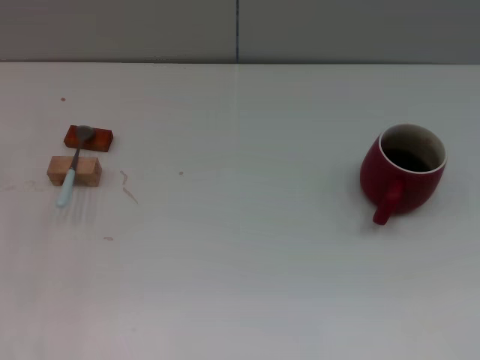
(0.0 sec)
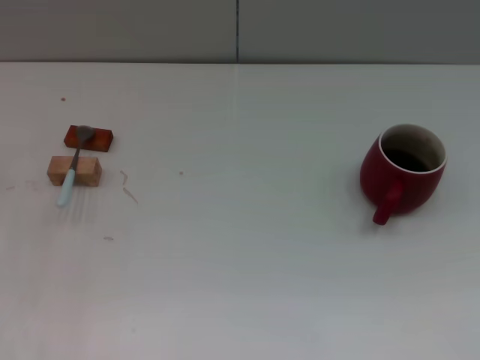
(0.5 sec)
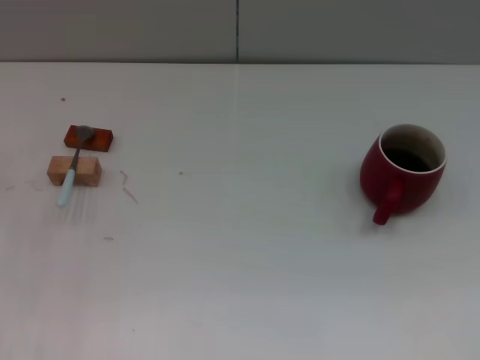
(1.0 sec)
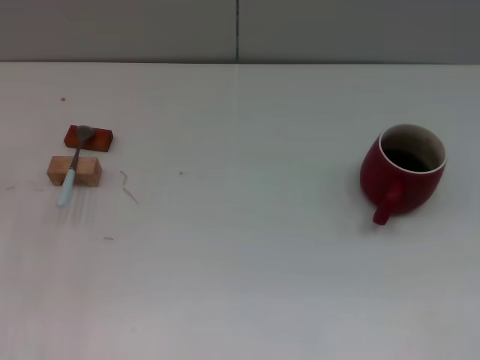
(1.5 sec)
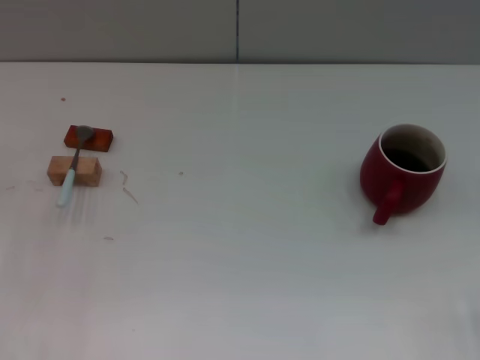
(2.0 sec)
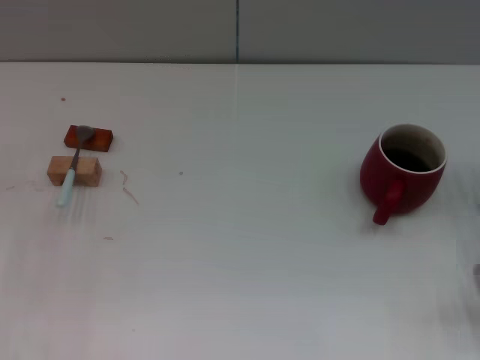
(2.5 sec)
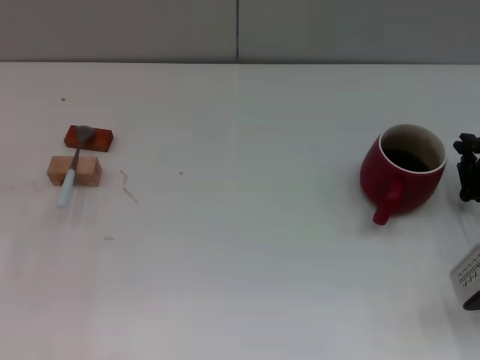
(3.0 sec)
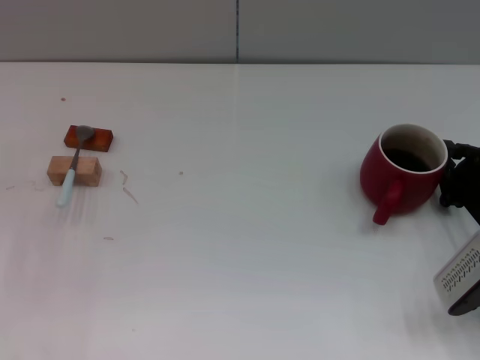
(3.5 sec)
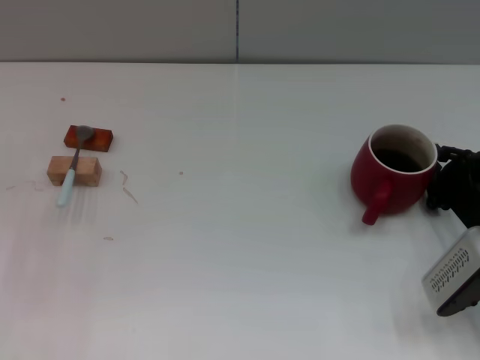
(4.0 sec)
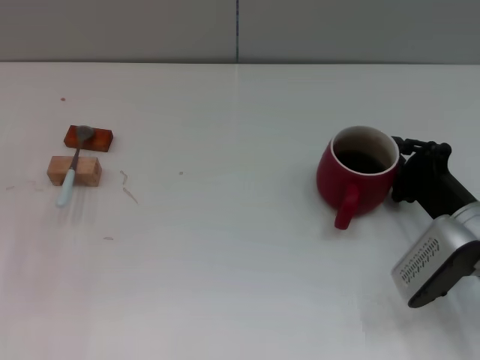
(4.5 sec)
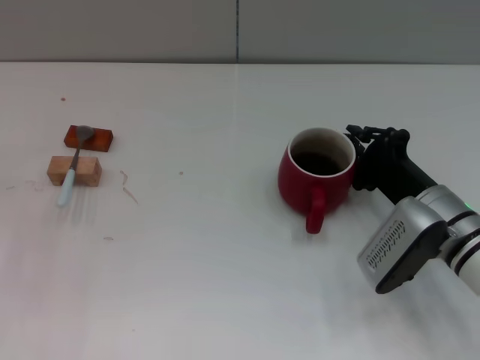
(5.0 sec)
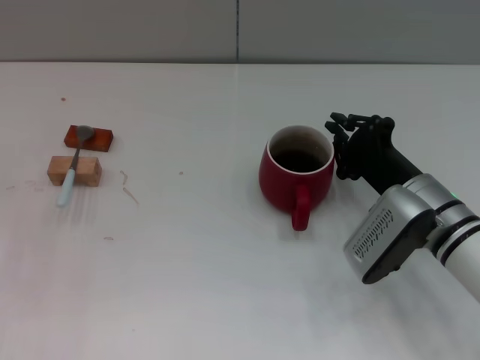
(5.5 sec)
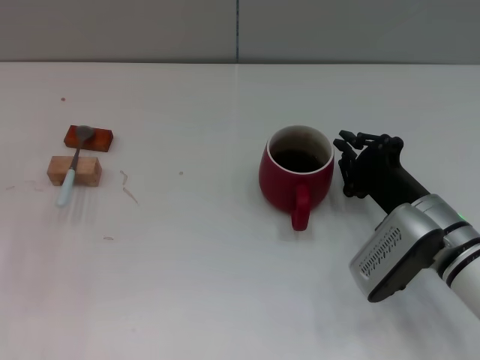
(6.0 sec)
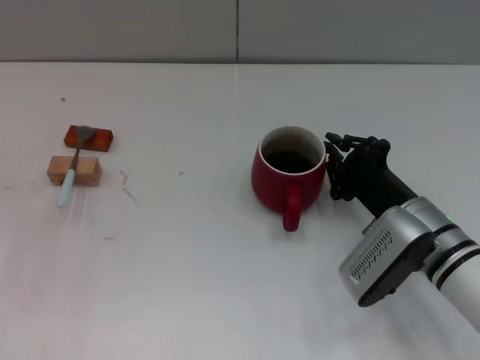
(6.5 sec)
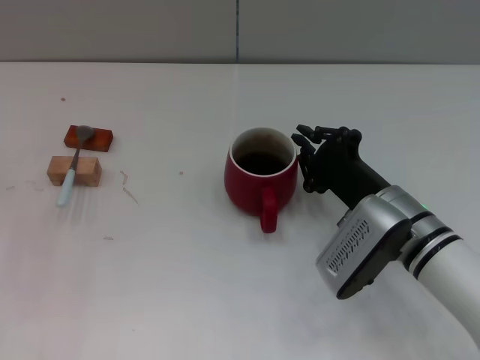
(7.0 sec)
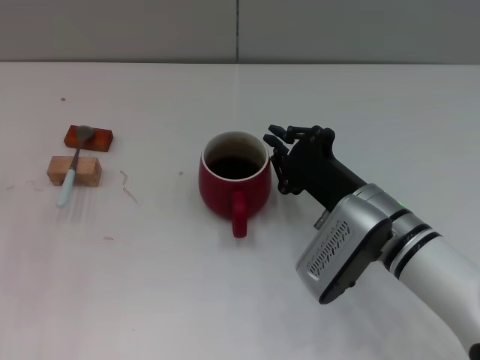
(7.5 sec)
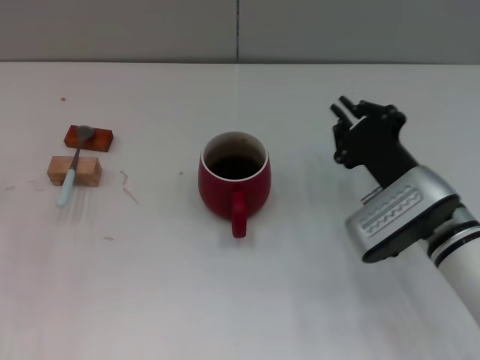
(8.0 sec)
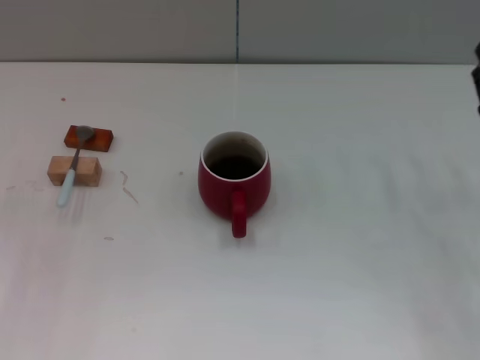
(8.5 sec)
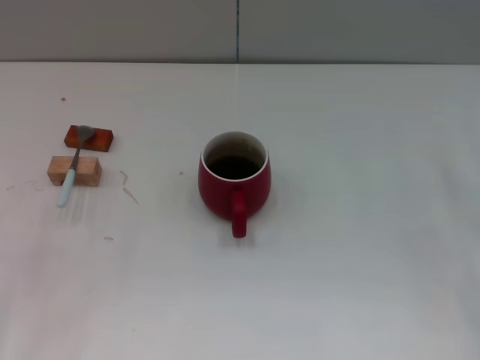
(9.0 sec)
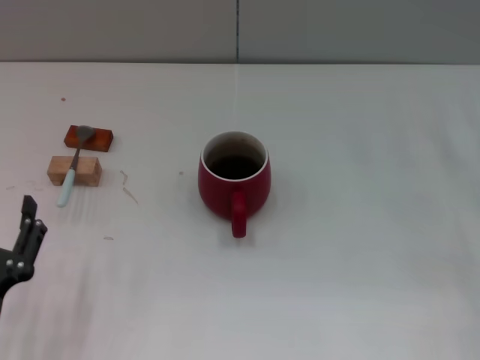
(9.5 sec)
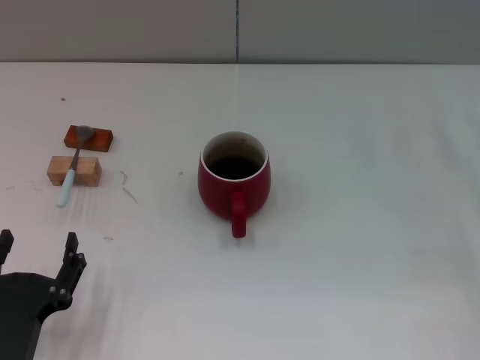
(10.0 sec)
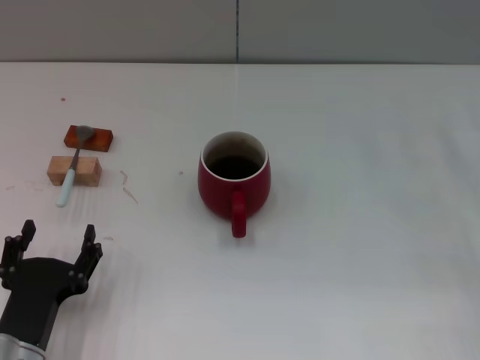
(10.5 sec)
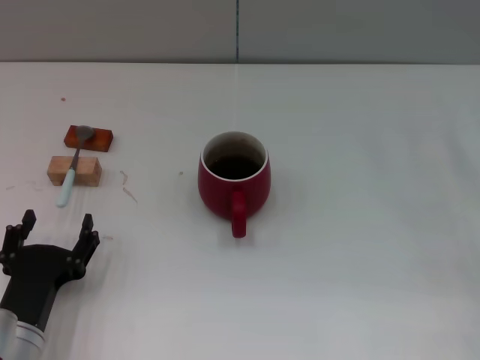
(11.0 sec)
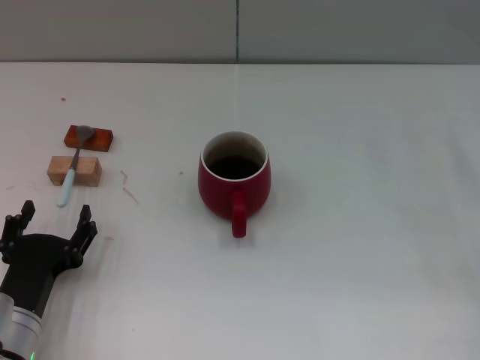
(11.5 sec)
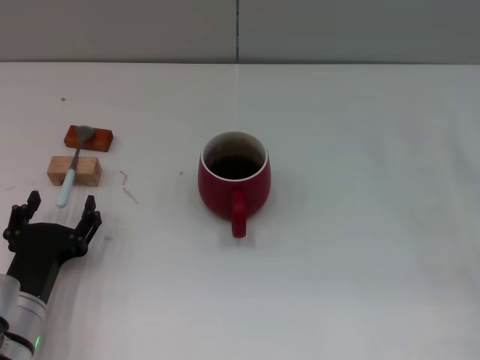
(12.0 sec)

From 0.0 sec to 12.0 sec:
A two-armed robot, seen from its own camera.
Task of the whole recording: Move the red cup to the center, lift the blue spoon, stir it three times in the cup, and put the spoon into the cup.
Step, from 0.0 sec to 7.5 sec: Move the cup with coffee to the center of view with the right gripper.
From 2.0 sec to 4.0 sec: The right gripper shifts approximately 10 cm to the left.
From 4.0 sec to 6.0 sec: The right gripper heads to the left, covering about 10 cm.
From 8.0 sec to 10.0 sec: The right gripper goes approximately 15 cm to the right, and opens its fingers. The left gripper heads backward and to the right, covering roughly 20 cm.
From 10.0 sec to 12.0 sec: The left gripper heads forward, covering roughly 10 cm.

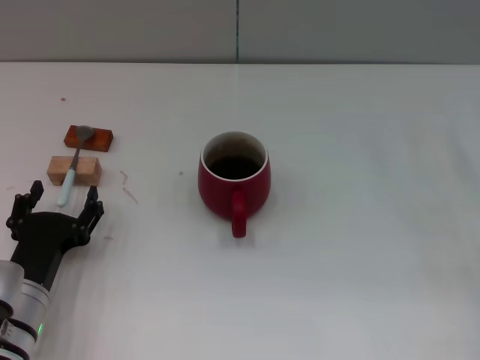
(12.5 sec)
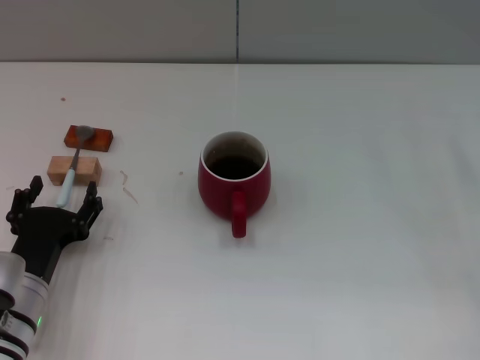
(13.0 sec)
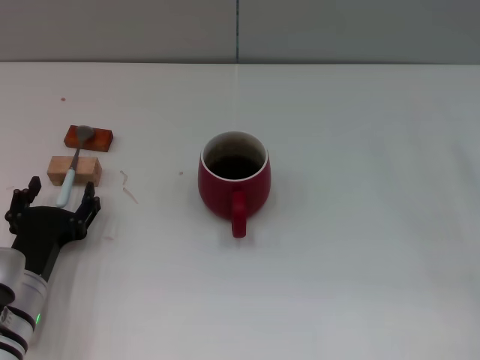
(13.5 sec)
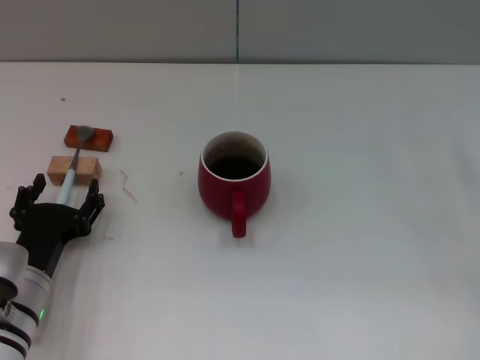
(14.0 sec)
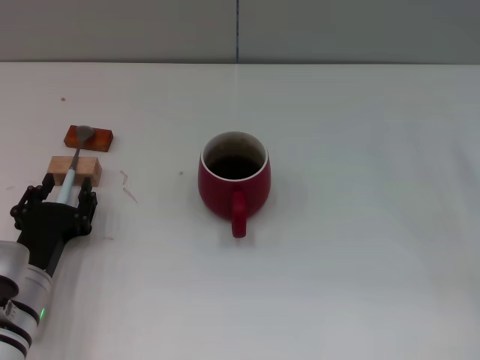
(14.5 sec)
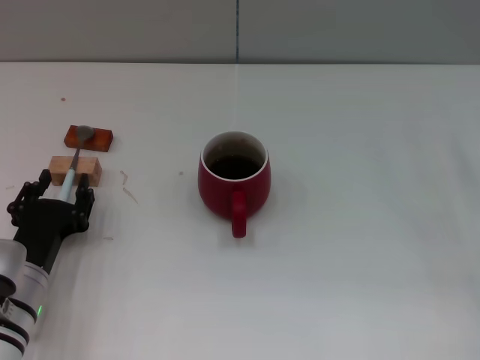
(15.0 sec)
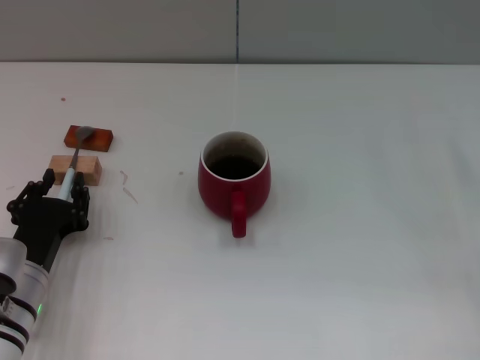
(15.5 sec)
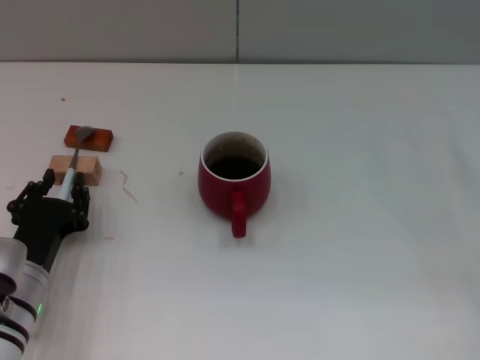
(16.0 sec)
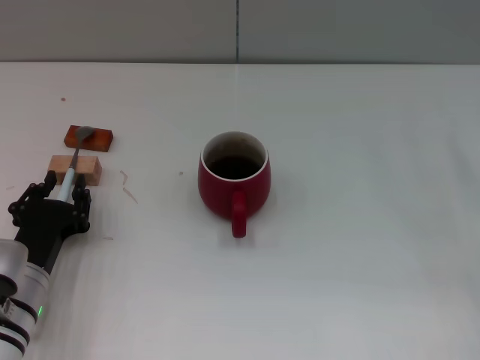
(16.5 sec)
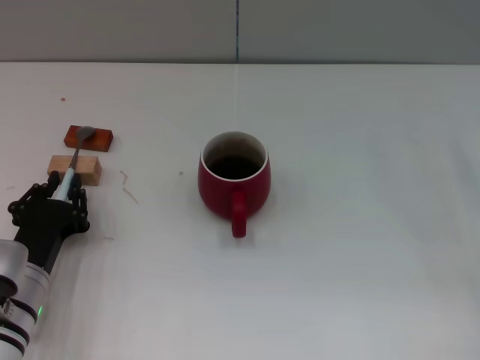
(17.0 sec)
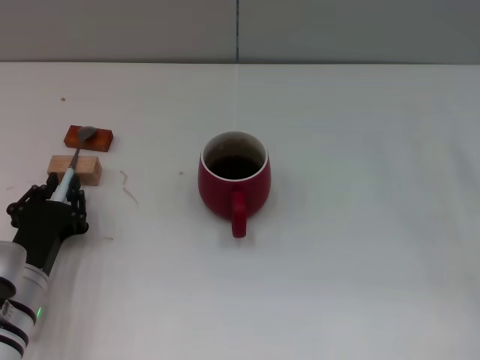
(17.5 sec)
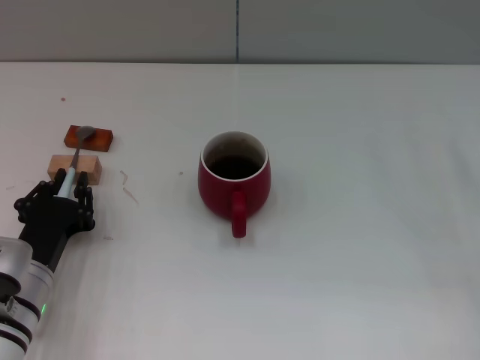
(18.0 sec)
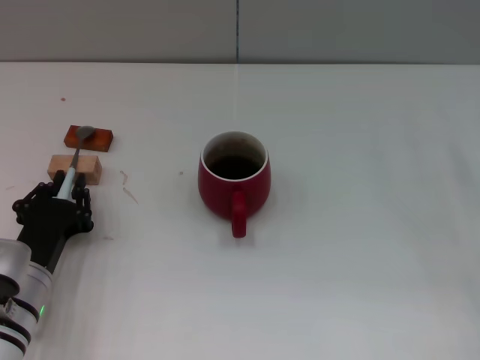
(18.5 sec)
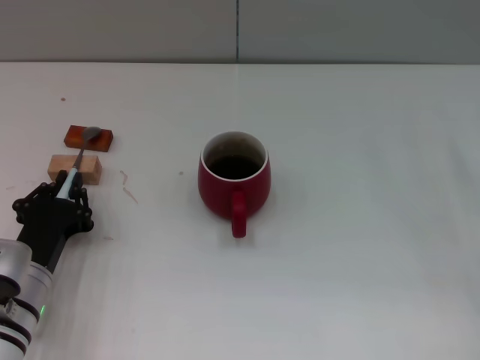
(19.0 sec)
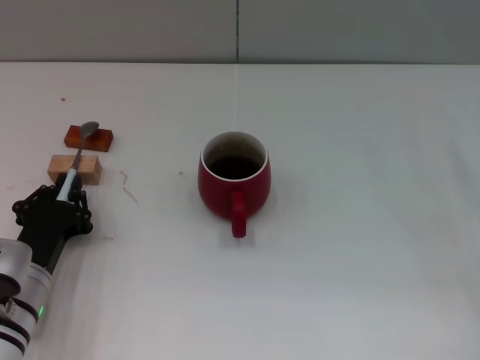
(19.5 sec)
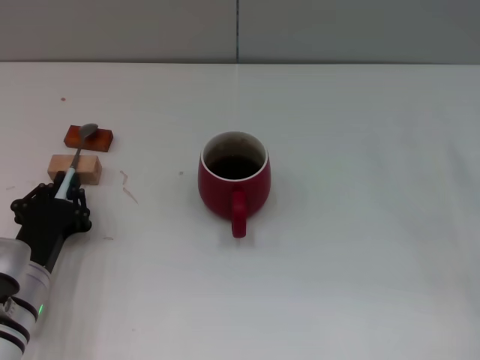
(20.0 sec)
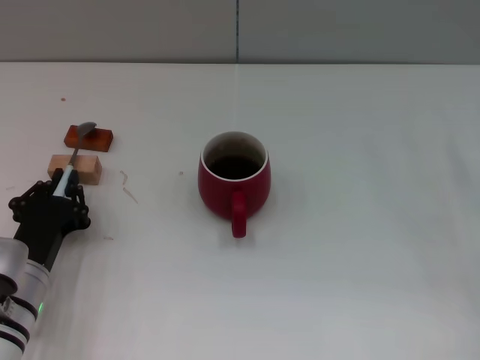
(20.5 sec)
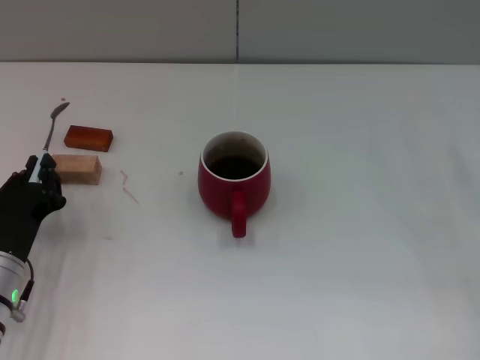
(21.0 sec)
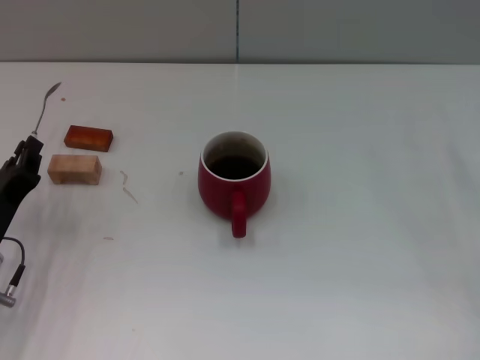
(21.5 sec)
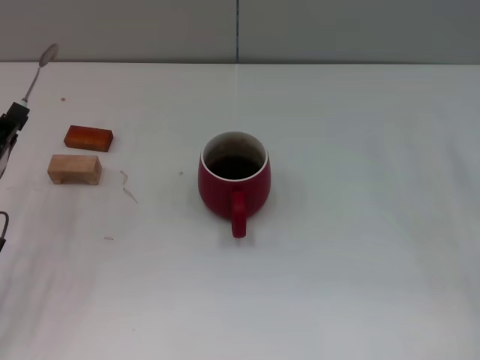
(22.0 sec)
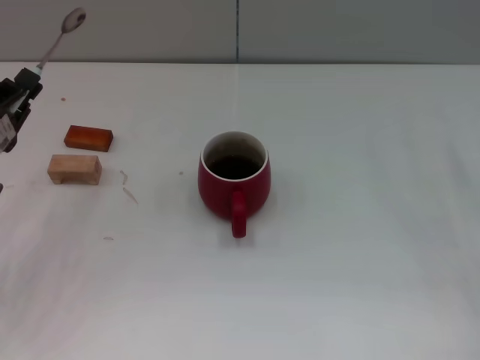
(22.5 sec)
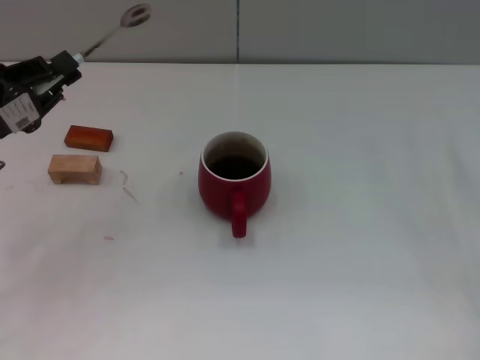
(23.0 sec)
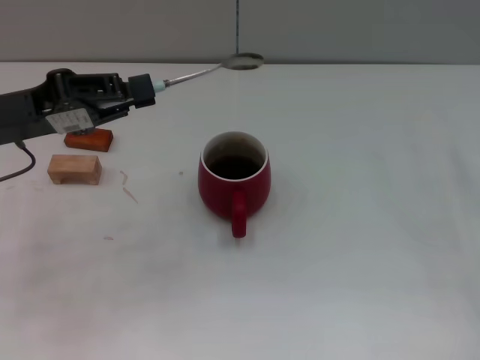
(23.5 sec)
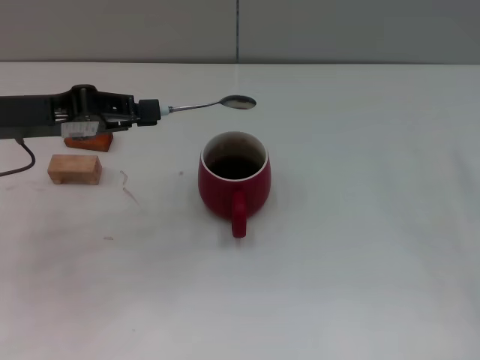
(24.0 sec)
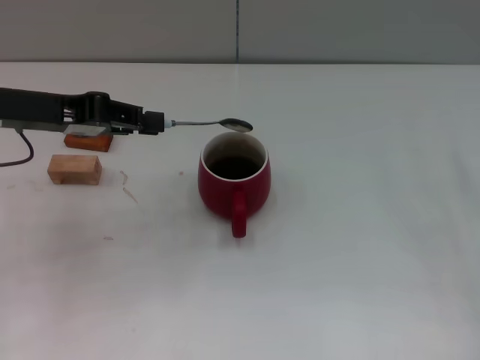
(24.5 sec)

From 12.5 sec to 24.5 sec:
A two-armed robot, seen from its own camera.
Task of the whole recording: Move the red cup to the center, lift the blue spoon, stir it three times in the cup, and put the spoon into the cup.
Step, from 12.5 sec to 22.0 sec: Pick up the spoon with the left gripper.
From 12.5 sec to 14.5 sec: The grippers move only a little.
From 14.5 sec to 16.5 sec: The left gripper closes its fingers.
From 16.5 sec to 20.5 sec: Both grippers stay put.
From 20.5 sec to 22.5 sec: The left gripper heads to the left and upward, covering some 10 cm.
From 22.5 sec to 24.5 sec: The left gripper heads upward and forward, covering some 15 cm.

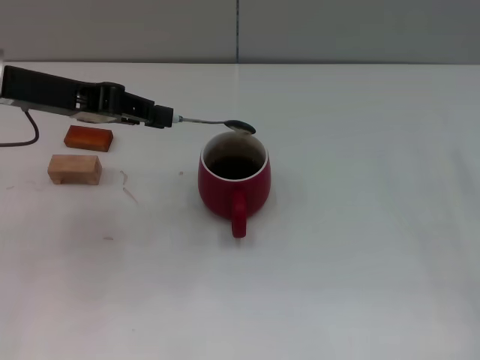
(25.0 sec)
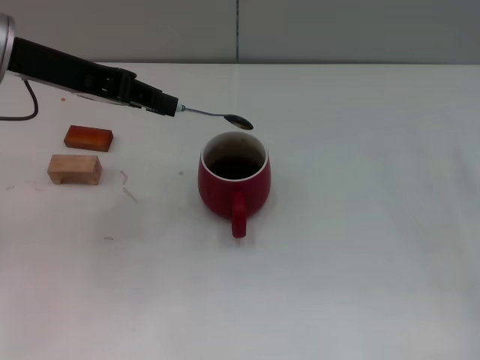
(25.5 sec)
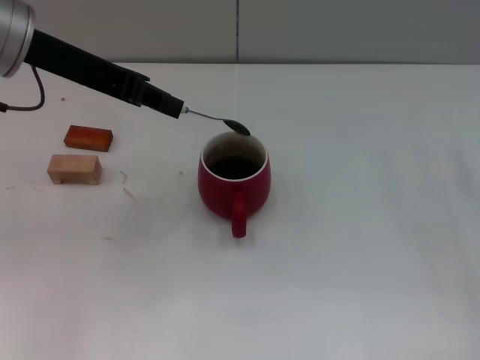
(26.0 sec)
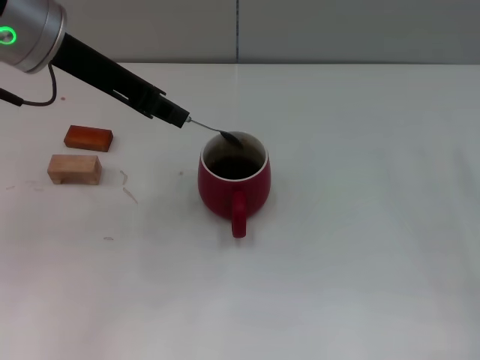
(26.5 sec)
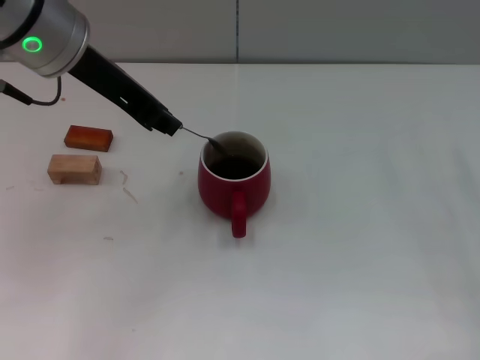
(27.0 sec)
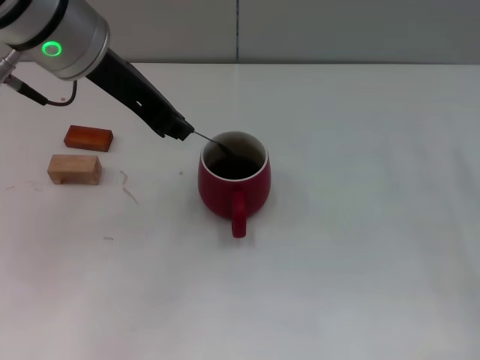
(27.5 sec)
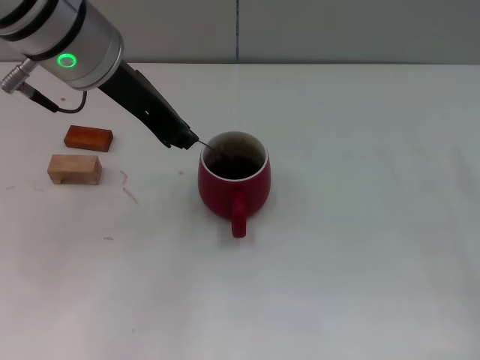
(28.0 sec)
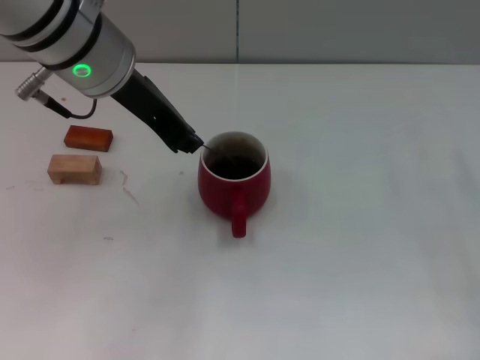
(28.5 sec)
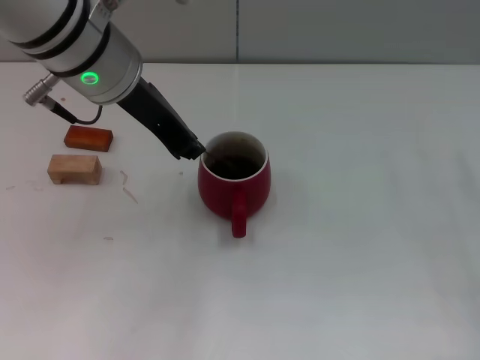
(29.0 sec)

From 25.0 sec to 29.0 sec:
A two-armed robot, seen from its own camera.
Task of the whole recording: Move the red cup to the center, lift the blue spoon, stir it three times in the cup, and put the spoon into the cup.
From 25.0 sec to 27.0 sec: The left gripper moves to the right and upward, some 10 cm.
From 27.0 sec to 29.0 sec: There are only small adjustments of the grippers.
